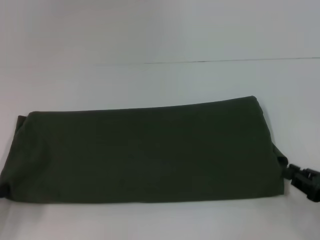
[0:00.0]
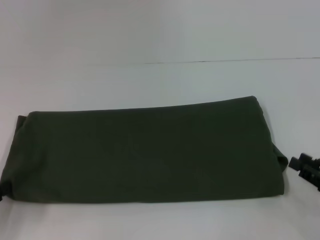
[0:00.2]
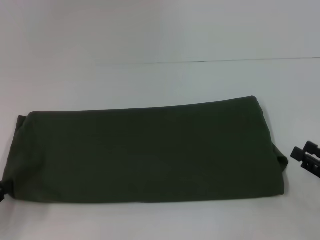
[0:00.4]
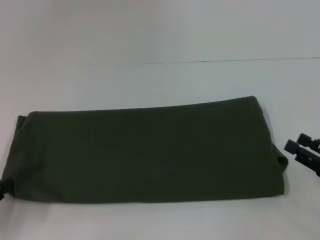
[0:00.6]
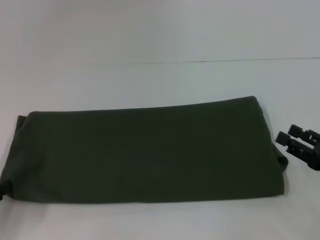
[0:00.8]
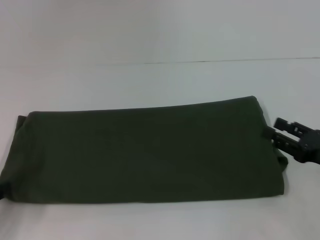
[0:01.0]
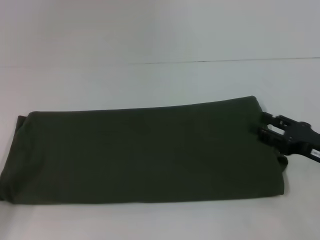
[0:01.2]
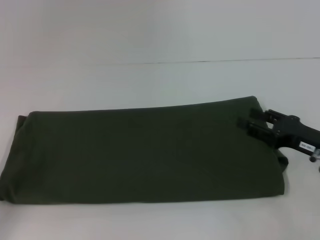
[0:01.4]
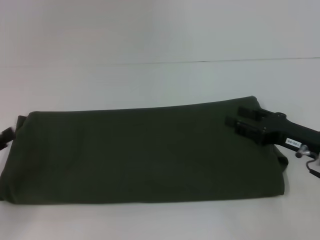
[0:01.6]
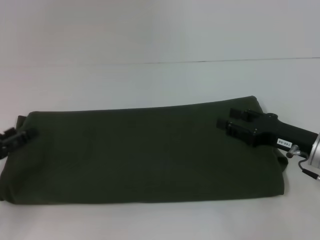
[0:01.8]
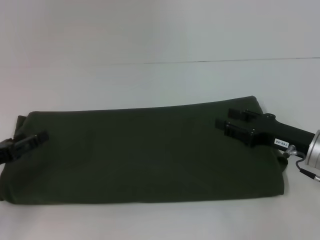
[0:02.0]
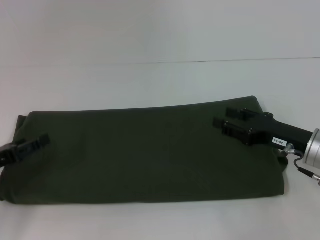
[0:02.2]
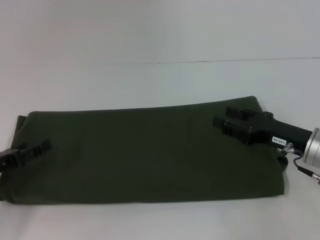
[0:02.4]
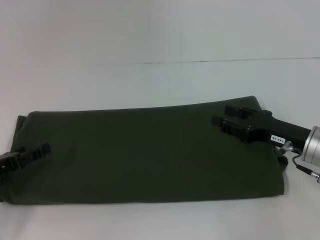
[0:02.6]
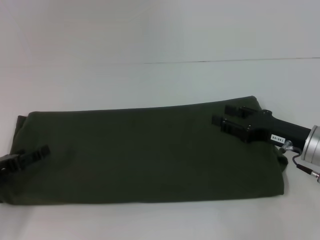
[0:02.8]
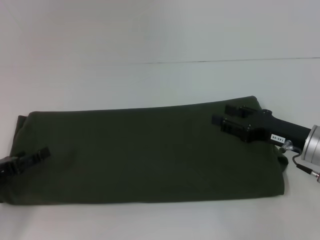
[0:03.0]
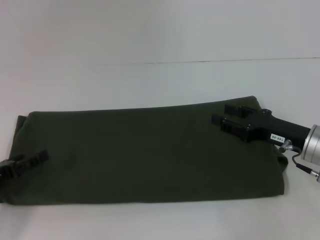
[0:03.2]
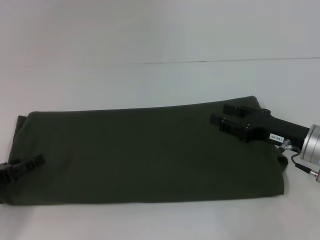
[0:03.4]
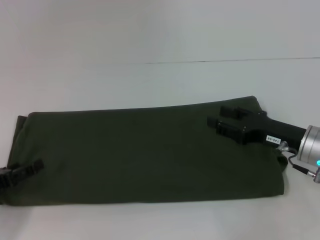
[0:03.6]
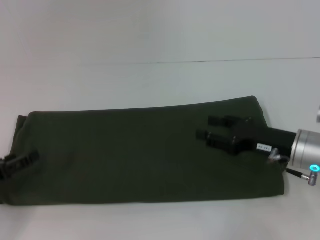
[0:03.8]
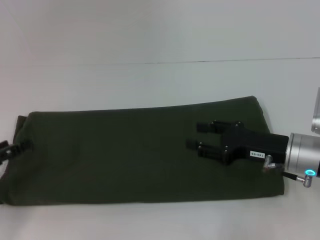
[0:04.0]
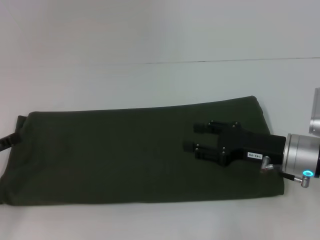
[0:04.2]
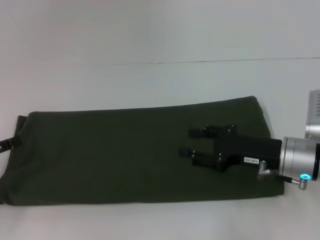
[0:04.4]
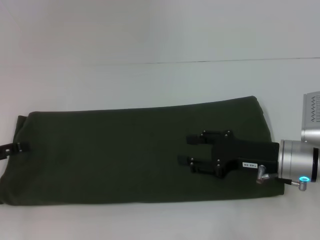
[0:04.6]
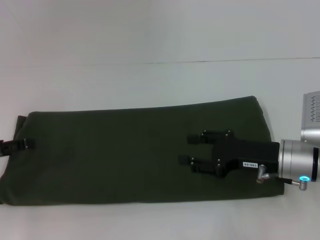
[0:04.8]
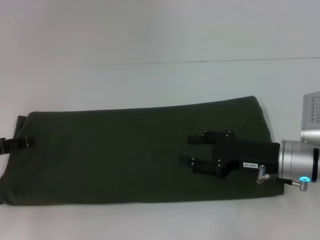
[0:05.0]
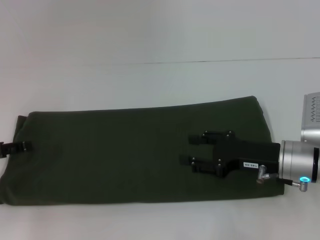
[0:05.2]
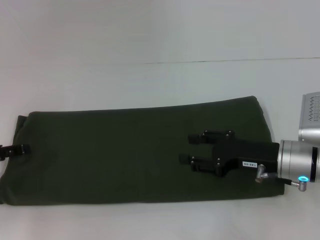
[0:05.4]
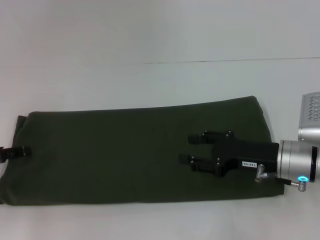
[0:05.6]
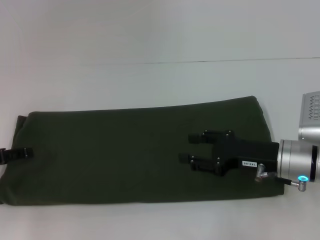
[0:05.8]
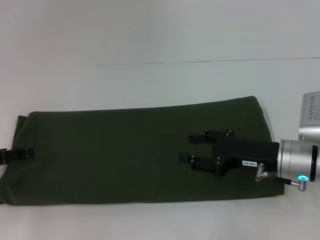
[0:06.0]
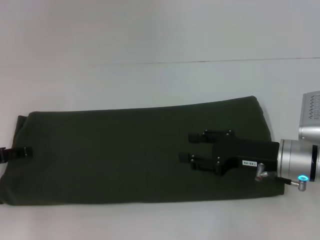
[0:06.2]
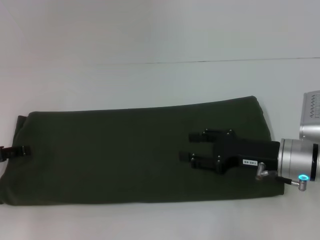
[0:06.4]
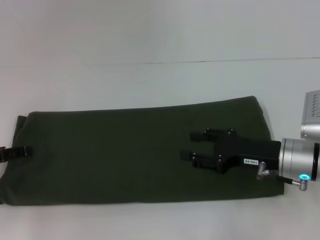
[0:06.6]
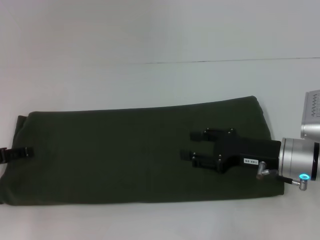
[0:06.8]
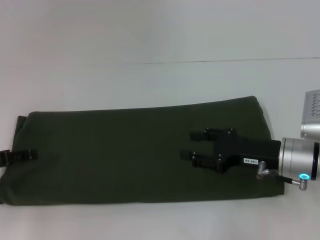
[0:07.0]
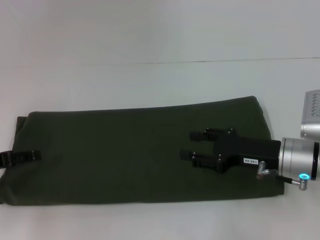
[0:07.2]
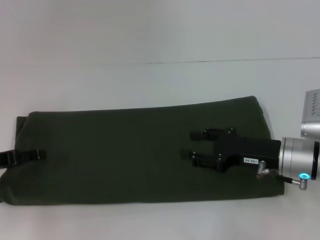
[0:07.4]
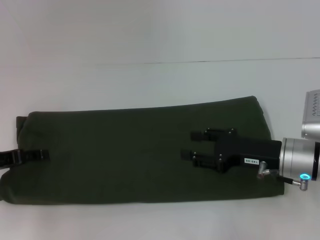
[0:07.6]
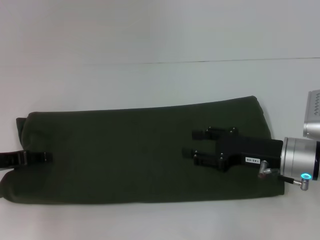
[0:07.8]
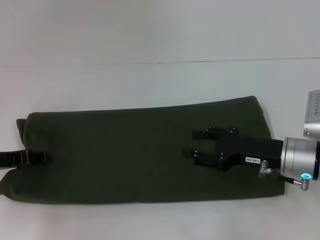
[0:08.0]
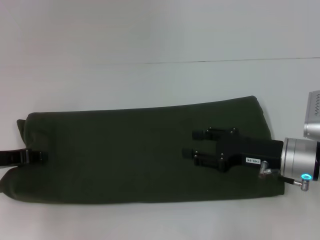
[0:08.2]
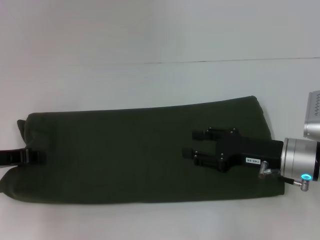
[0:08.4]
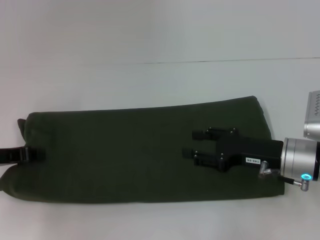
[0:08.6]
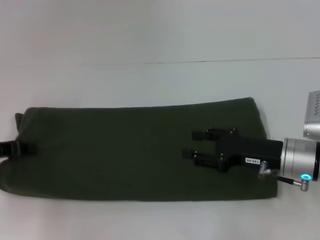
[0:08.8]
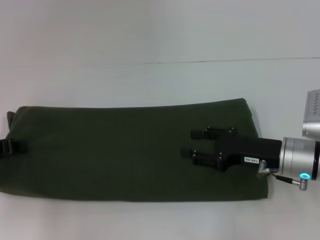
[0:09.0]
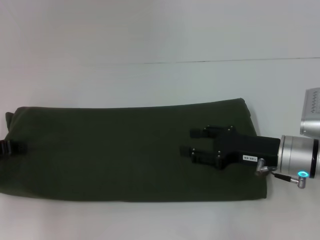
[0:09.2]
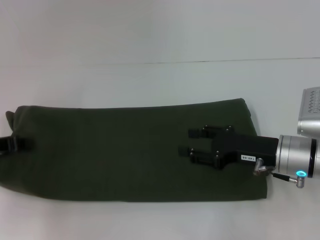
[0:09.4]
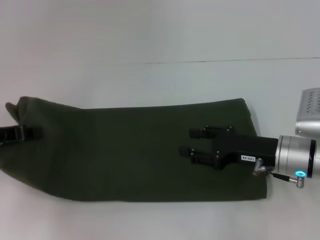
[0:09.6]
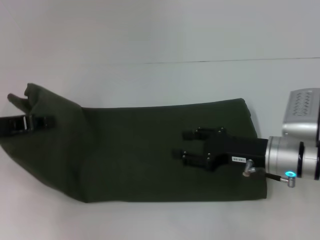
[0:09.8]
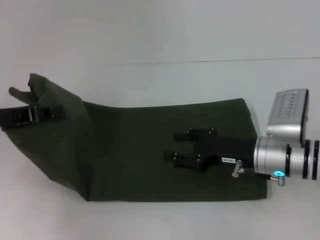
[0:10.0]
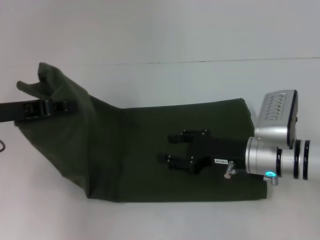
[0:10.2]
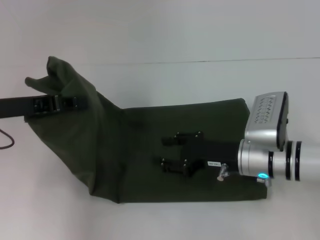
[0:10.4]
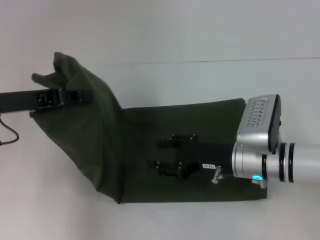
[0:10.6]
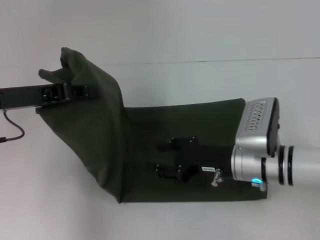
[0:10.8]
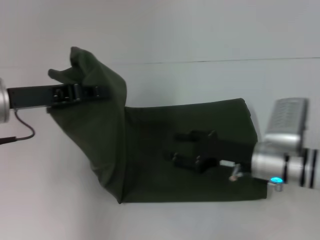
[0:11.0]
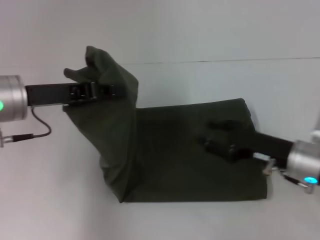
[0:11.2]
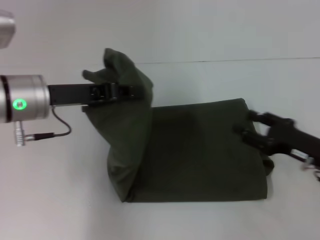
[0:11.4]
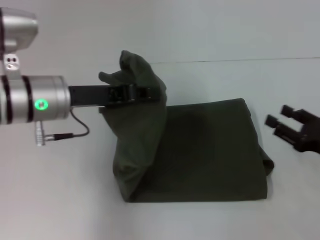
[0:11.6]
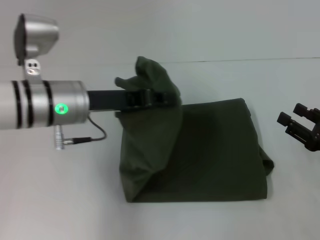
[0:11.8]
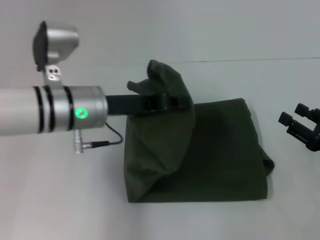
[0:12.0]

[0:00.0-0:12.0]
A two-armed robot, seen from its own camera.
0:00.0 to 0:01.6: The right gripper goes approximately 10 cm forward and to the left, and opens its fingers.
0:01.6 to 0:03.0: The left gripper moves roughly 5 cm.
0:03.0 to 0:04.4: The left gripper shifts by roughly 5 cm.
0:04.4 to 0:07.6: The grippers stay close to where they were, moving slightly.
0:07.6 to 0:09.0: The left gripper closes its fingers.
0:09.0 to 0:10.4: The right gripper shifts some 5 cm to the left, while the left gripper heads to the right and upward, covering some 10 cm.
0:10.4 to 0:12.0: Both grippers travel together to the right, roughly 15 cm.

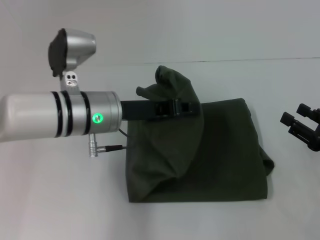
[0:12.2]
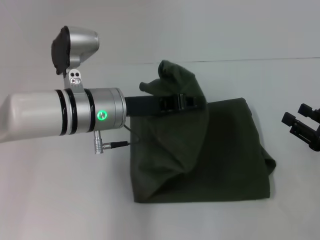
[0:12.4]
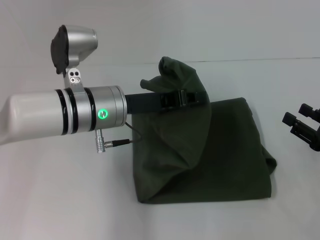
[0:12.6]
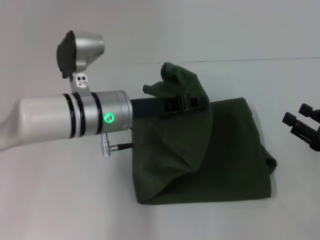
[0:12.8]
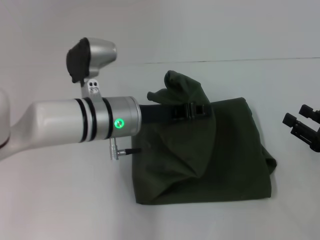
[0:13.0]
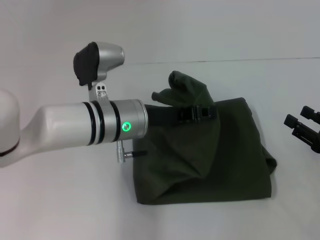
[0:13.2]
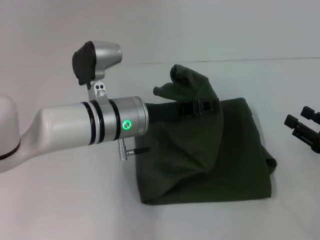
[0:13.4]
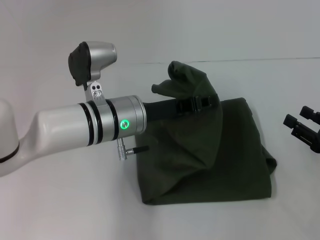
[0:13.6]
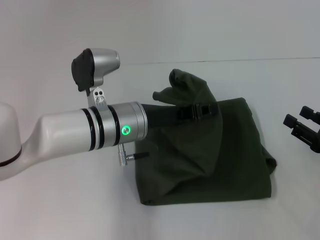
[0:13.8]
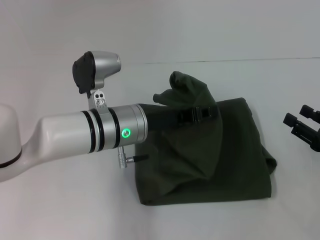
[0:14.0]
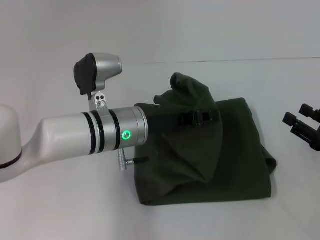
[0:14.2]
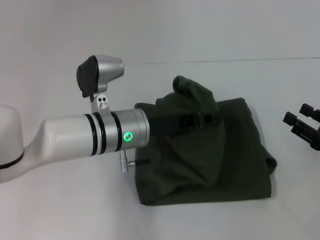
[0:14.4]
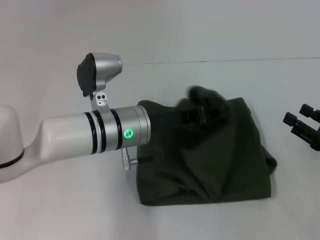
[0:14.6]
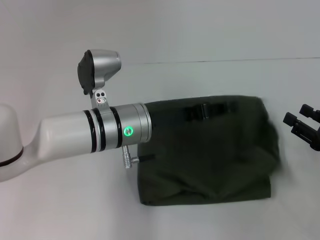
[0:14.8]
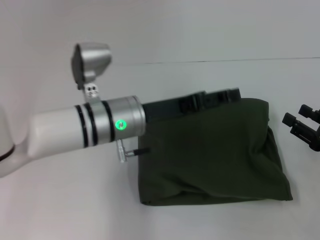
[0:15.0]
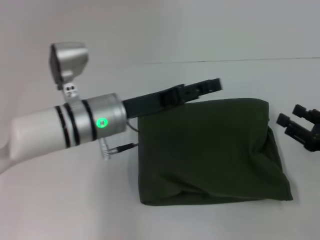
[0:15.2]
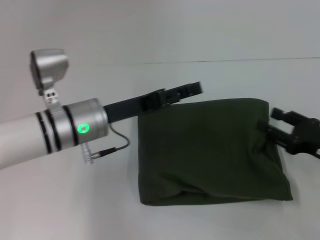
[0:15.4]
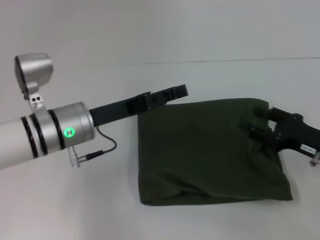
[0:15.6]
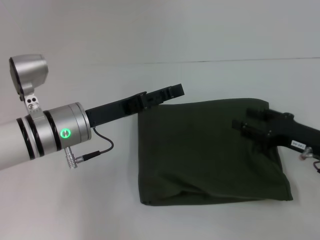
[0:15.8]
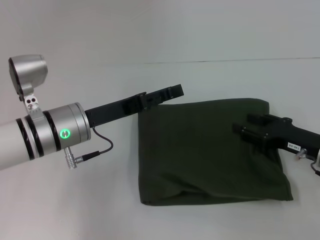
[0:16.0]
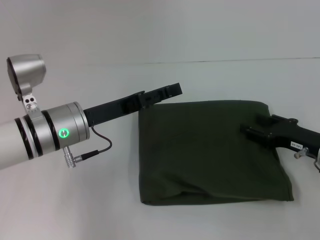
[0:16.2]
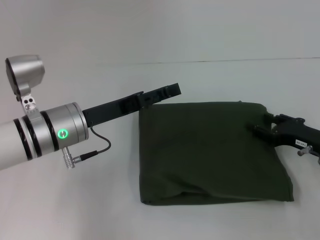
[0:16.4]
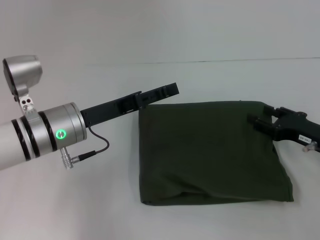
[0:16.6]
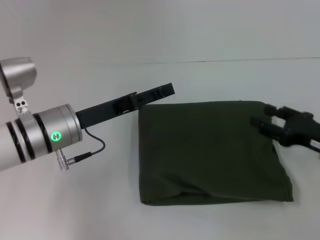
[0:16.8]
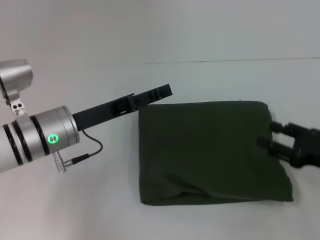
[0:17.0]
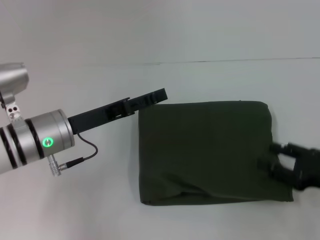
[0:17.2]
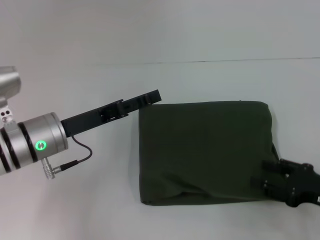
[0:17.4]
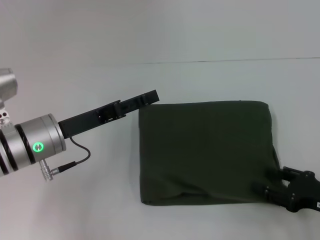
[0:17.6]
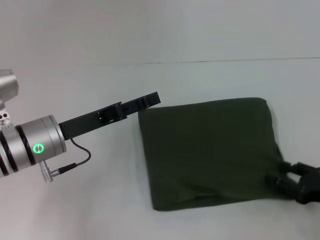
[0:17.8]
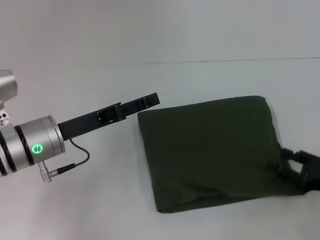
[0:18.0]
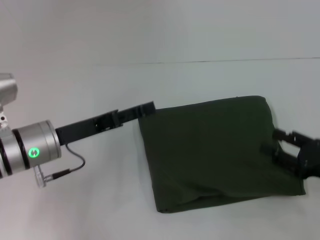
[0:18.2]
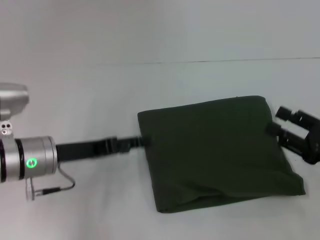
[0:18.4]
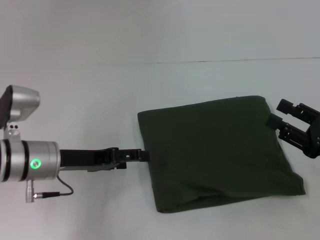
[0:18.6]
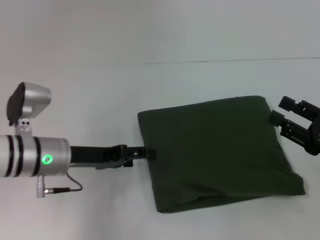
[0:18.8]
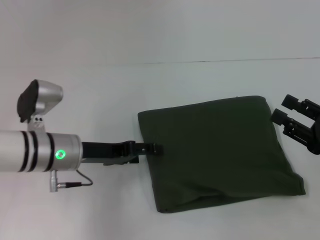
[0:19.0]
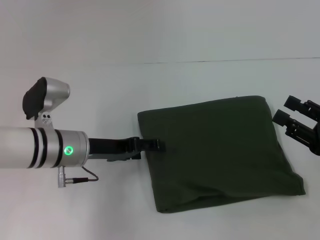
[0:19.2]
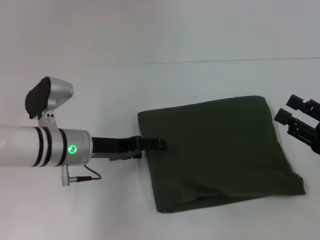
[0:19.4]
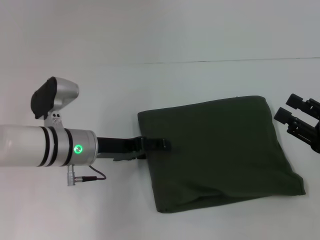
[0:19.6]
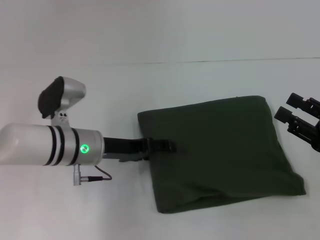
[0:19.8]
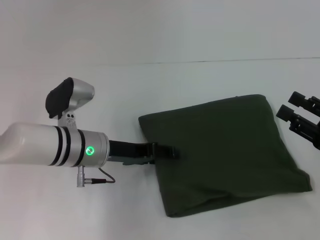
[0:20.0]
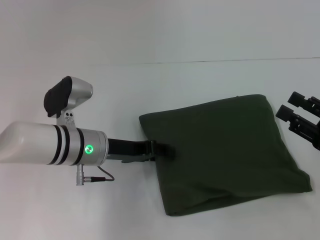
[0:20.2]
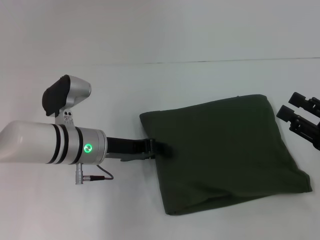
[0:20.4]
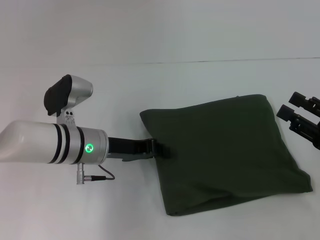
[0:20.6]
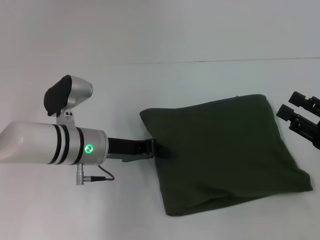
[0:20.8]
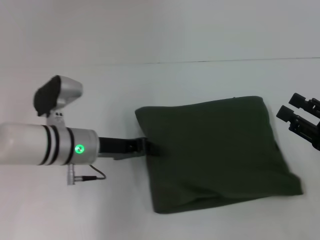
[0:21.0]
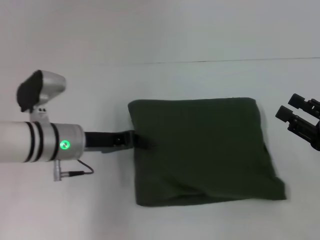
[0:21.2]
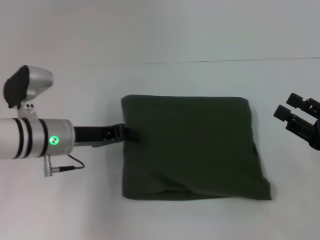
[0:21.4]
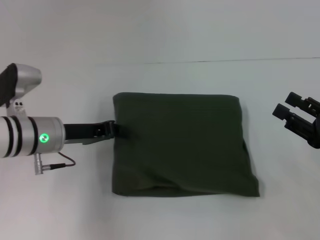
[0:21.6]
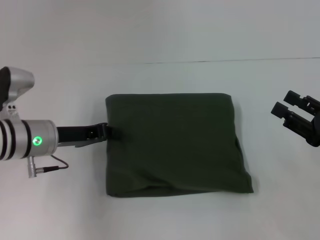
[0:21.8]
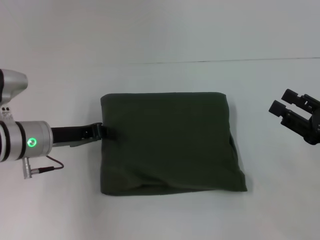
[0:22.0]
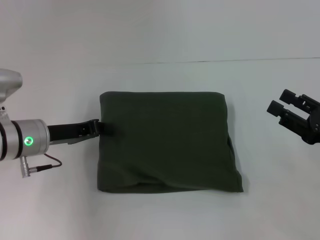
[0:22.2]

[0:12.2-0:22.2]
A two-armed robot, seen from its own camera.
Step, 0:12.2 to 0:15.0: Fold the clothes with your left hand.
0:12.2 to 0:13.6: The grippers move only a little.
0:13.6 to 0:15.0: The left gripper opens.
0:15.0 to 0:16.4: The right gripper moves forward, about 5 cm; the left gripper shifts roughly 10 cm to the left, and opens up.
0:16.4 to 0:18.0: The right gripper shifts about 10 cm backward.
0:18.0 to 0:19.4: The right gripper is displaced upward by approximately 5 cm.
0:19.4 to 0:20.8: The left gripper closes.
0:20.8 to 0:22.2: The left gripper is displaced to the left by roughly 10 cm.
